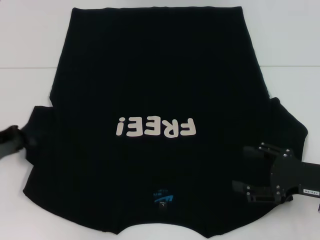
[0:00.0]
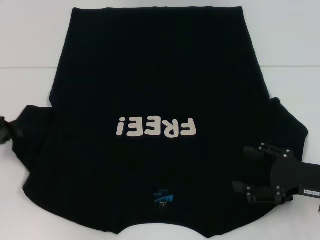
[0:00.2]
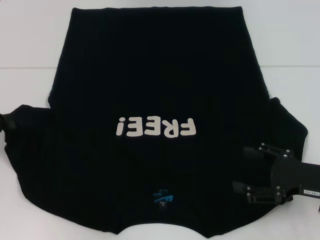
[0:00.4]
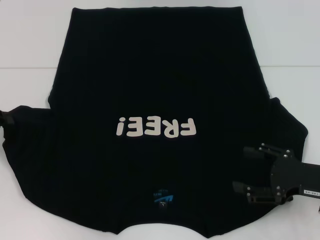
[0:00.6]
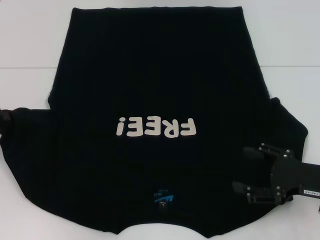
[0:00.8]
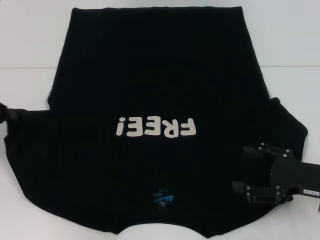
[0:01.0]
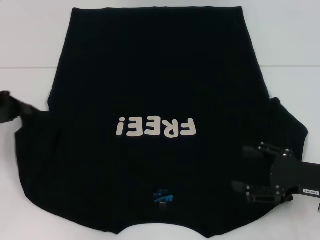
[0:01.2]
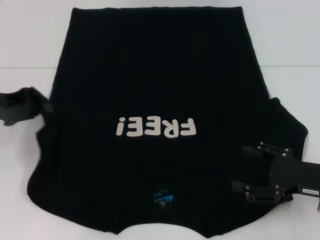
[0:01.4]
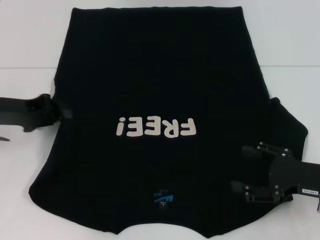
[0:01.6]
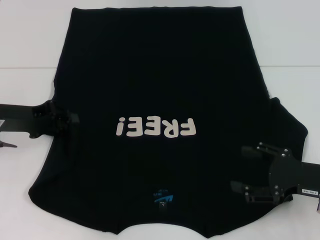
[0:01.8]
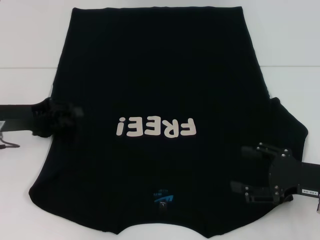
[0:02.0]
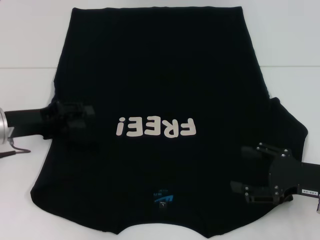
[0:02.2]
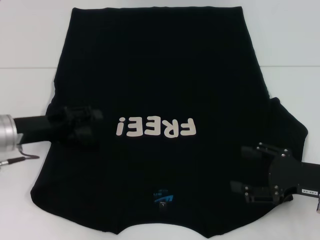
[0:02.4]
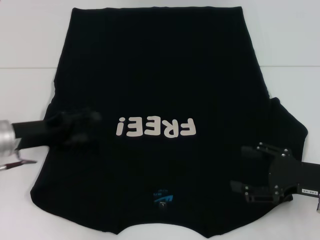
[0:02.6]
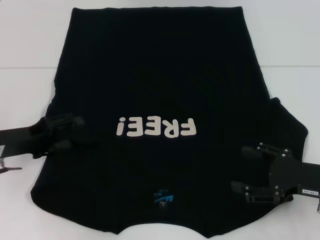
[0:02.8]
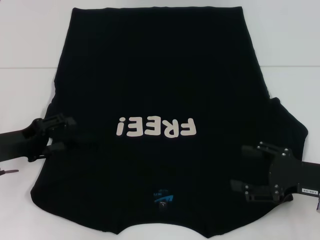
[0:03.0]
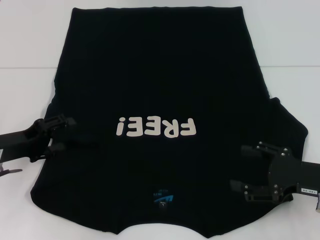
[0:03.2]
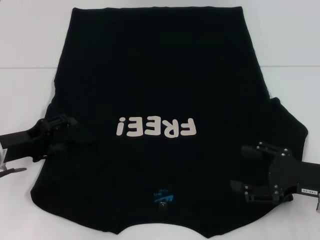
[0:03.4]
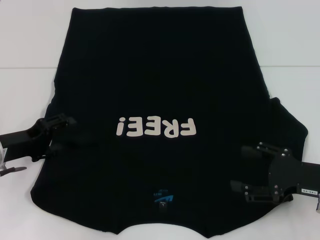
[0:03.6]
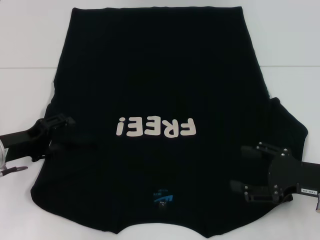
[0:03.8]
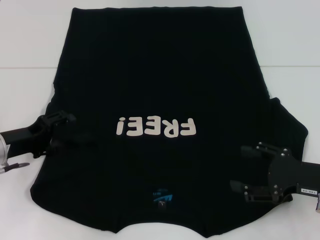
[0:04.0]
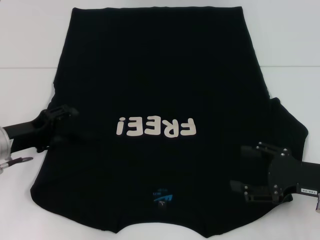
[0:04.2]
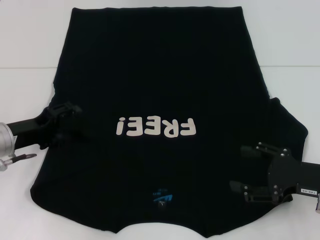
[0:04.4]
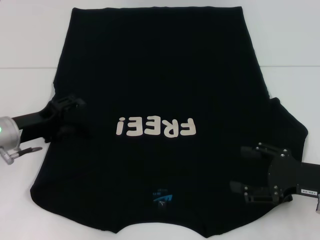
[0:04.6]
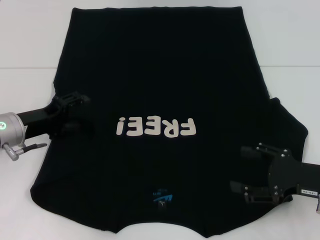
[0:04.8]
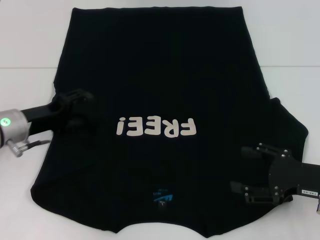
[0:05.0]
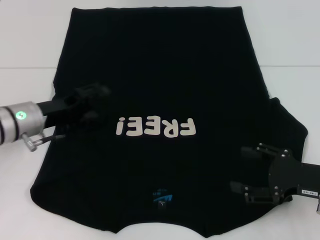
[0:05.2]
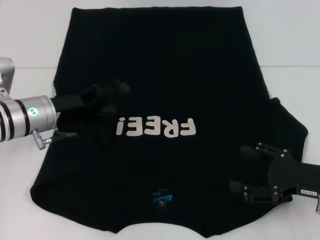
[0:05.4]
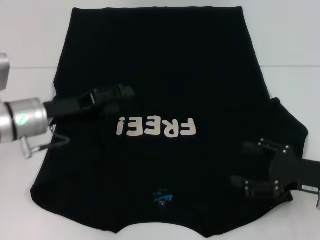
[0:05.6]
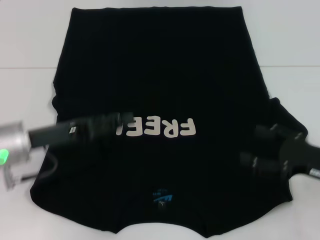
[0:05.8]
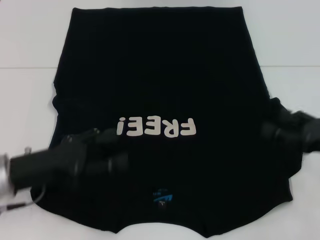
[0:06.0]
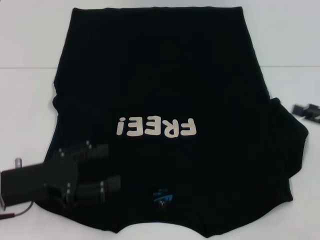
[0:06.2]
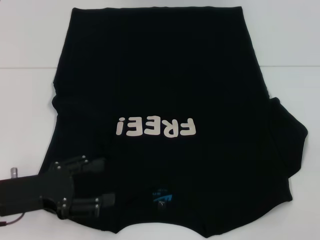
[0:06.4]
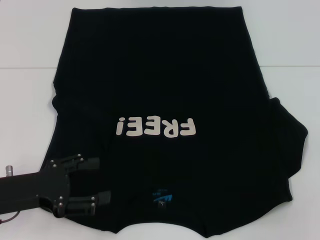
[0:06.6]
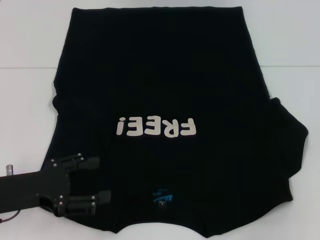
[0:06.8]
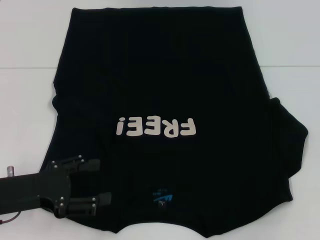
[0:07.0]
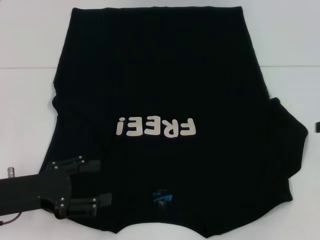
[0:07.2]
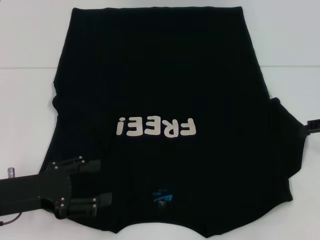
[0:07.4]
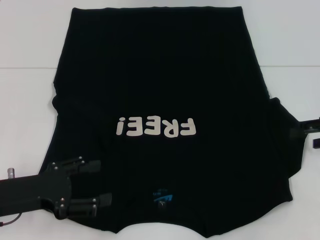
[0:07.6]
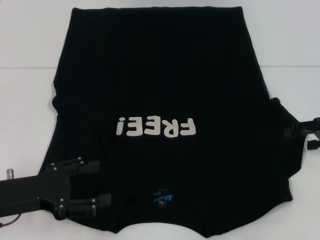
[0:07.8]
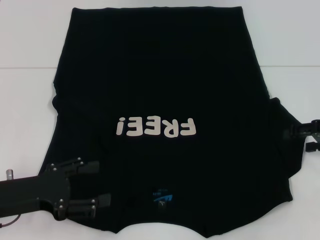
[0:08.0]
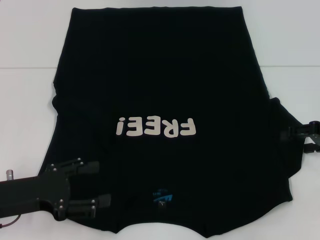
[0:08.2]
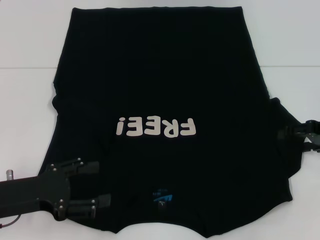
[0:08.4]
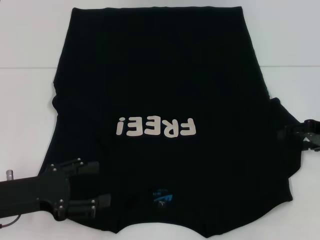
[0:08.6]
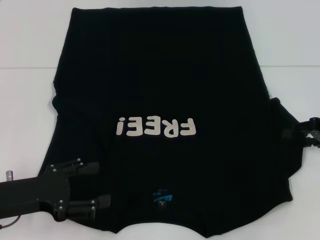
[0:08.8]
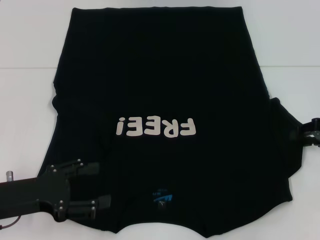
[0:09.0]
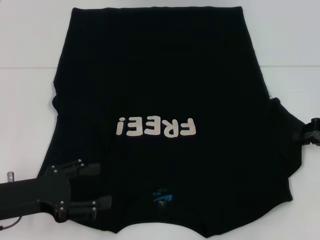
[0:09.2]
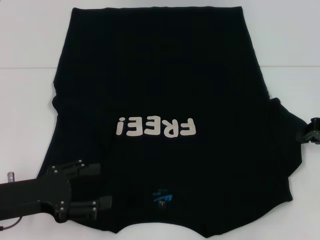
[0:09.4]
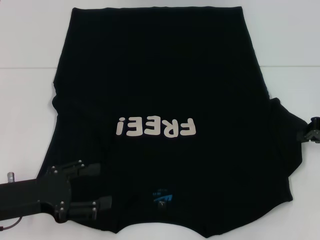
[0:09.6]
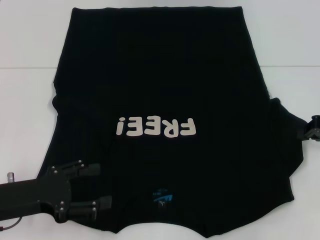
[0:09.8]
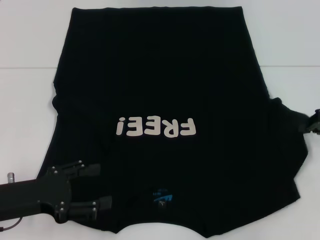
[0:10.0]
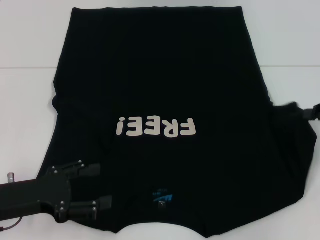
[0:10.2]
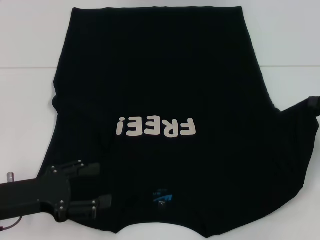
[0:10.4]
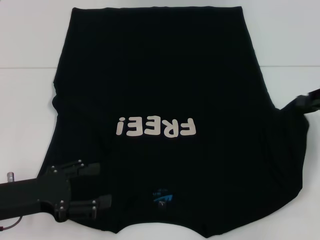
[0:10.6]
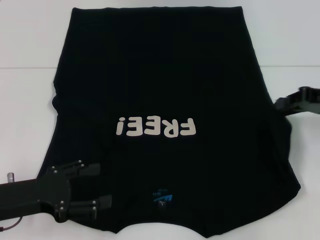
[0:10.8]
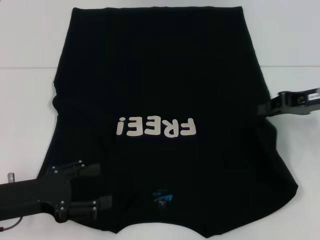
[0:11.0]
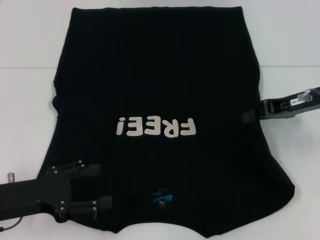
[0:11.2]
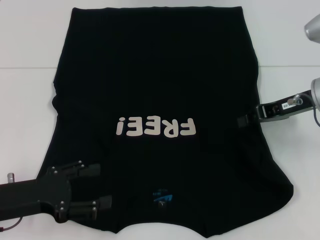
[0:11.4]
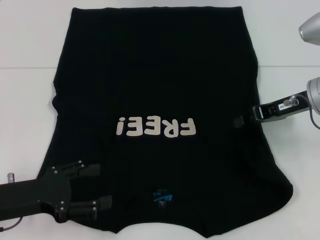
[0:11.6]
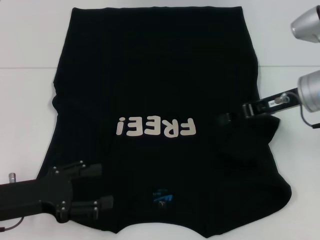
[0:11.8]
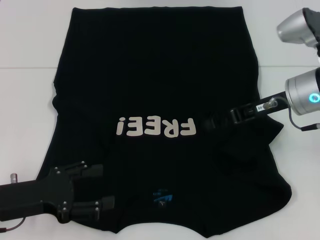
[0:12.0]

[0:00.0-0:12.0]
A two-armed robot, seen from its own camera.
Step, 0:00.0 to 0:02.2: Fold the bottom left sleeve with your left hand.
0:00.0 to 0:01.6: The left gripper ends up some 10 cm from where it was.
0:01.6 to 0:03.0: The left gripper moves downward, about 5 cm, and opens.
0:03.0 to 0:04.4: The grippers make only small movements.
0:04.4 to 0:06.0: The left gripper goes approximately 5 cm backward.
0:06.0 to 0:07.6: The right gripper is displaced forward and upward by about 10 cm, and moves approximately 10 cm to the right and comes back.
0:07.6 to 0:09.0: The grippers make only small movements.
0:09.0 to 0:10.4: The right gripper closes its fingers.
0:10.4 to 0:12.0: The right gripper goes approximately 15 cm to the left.

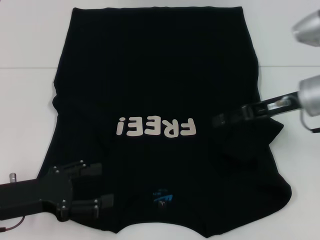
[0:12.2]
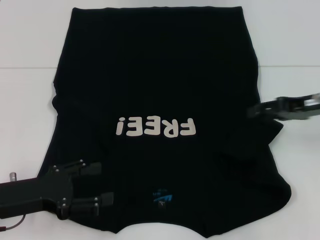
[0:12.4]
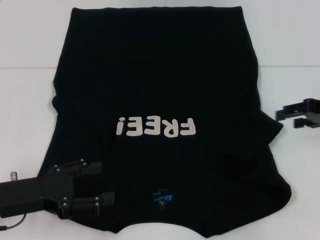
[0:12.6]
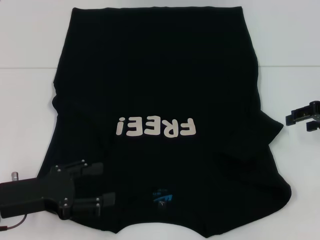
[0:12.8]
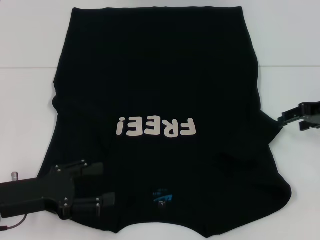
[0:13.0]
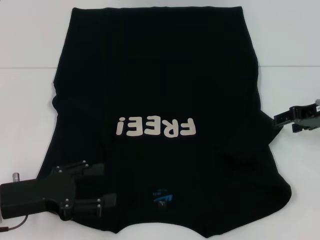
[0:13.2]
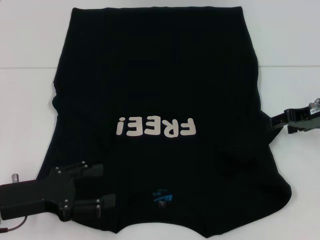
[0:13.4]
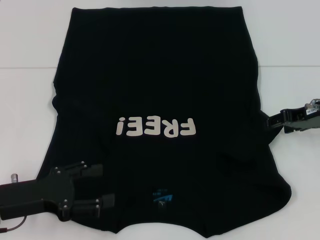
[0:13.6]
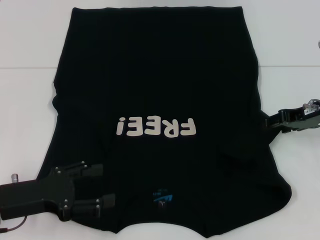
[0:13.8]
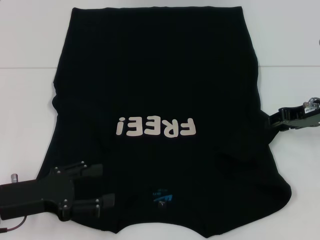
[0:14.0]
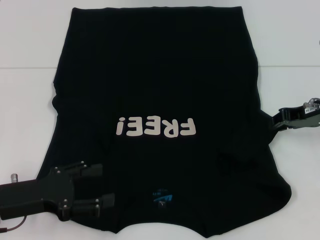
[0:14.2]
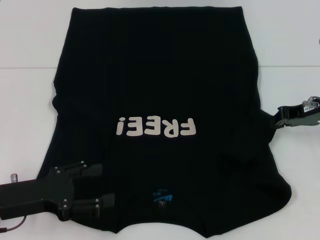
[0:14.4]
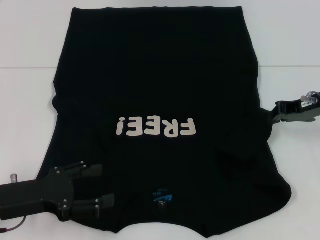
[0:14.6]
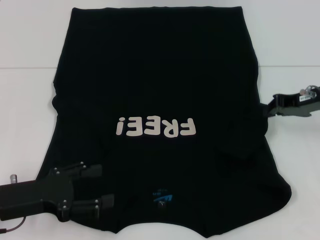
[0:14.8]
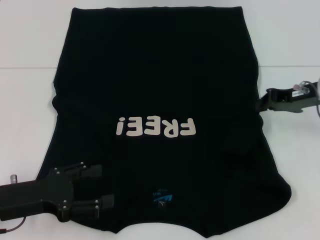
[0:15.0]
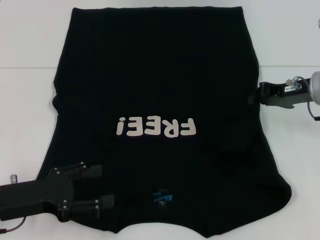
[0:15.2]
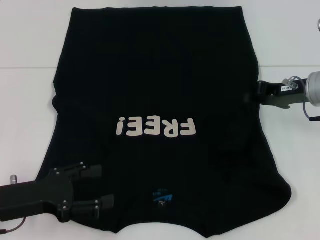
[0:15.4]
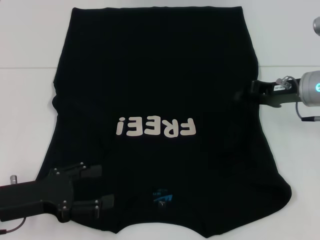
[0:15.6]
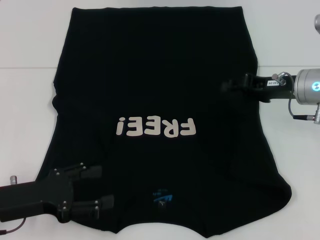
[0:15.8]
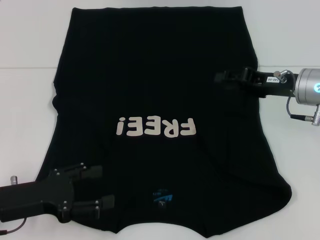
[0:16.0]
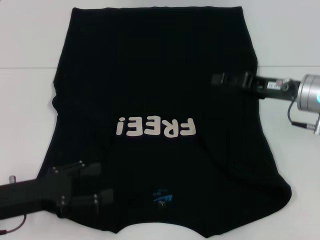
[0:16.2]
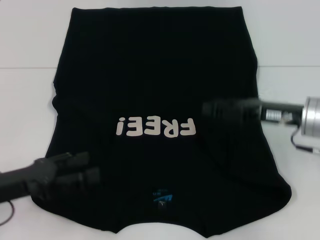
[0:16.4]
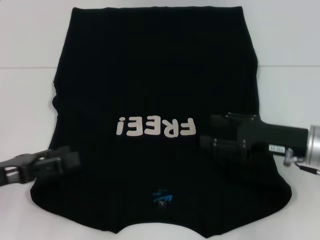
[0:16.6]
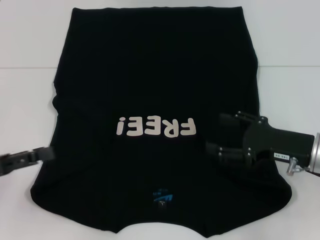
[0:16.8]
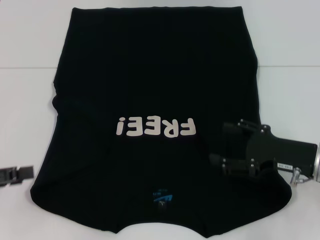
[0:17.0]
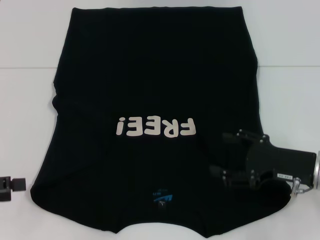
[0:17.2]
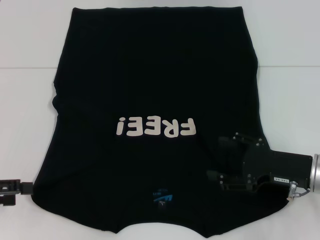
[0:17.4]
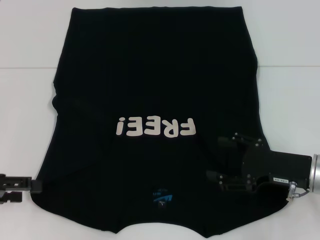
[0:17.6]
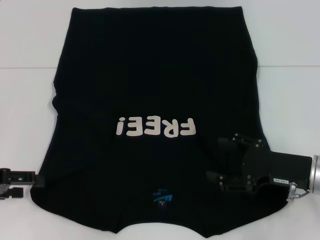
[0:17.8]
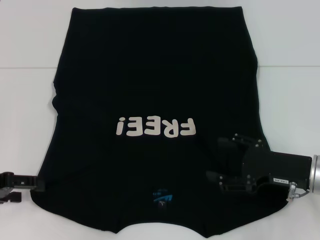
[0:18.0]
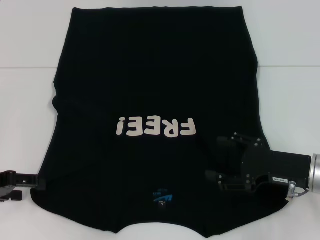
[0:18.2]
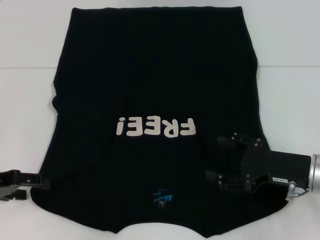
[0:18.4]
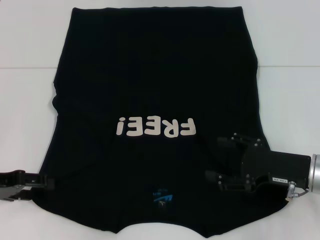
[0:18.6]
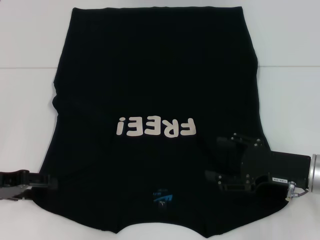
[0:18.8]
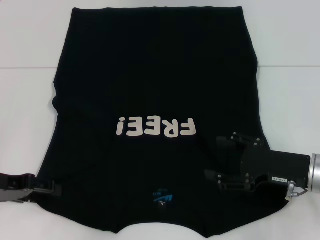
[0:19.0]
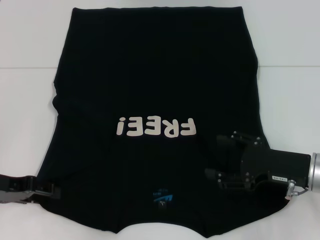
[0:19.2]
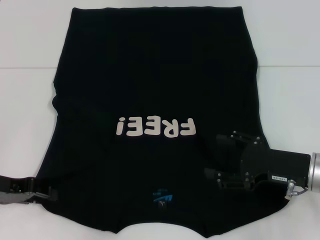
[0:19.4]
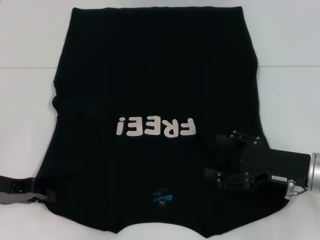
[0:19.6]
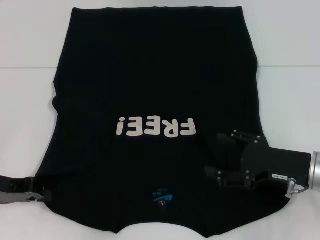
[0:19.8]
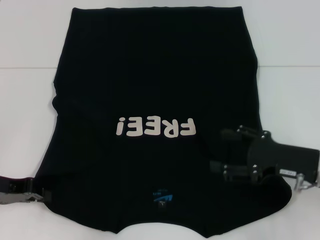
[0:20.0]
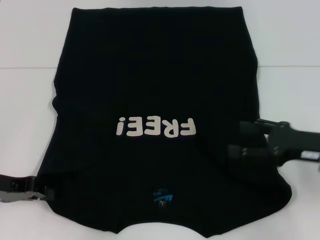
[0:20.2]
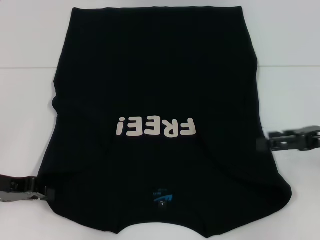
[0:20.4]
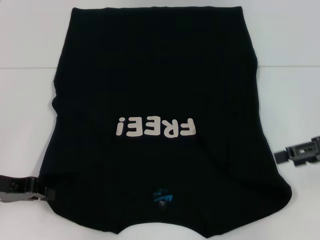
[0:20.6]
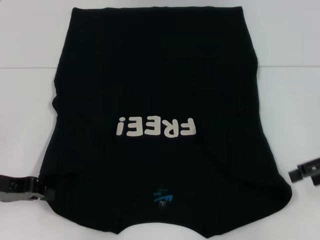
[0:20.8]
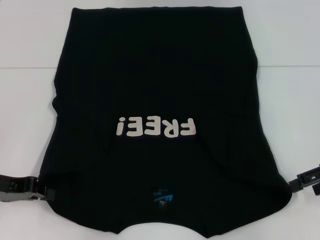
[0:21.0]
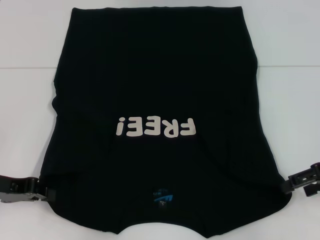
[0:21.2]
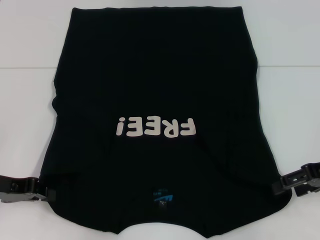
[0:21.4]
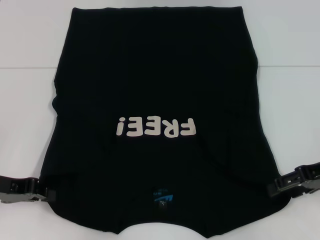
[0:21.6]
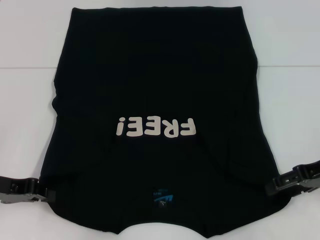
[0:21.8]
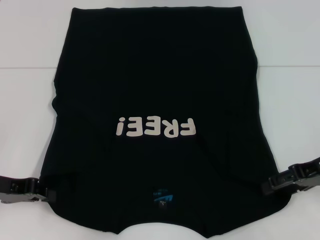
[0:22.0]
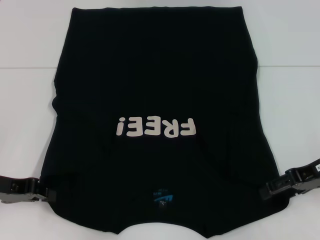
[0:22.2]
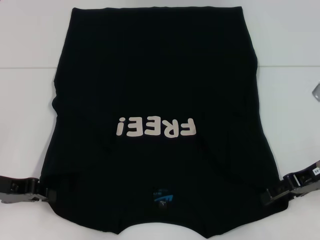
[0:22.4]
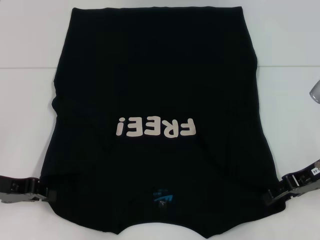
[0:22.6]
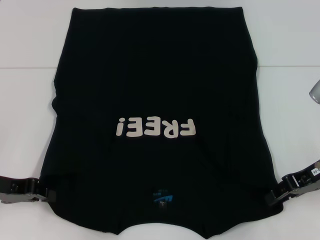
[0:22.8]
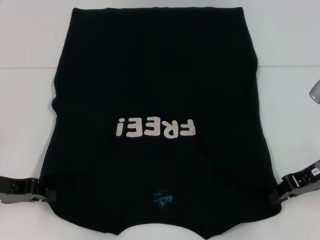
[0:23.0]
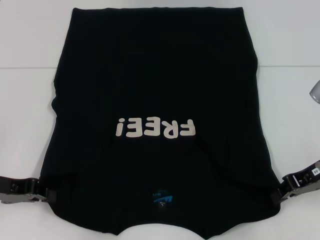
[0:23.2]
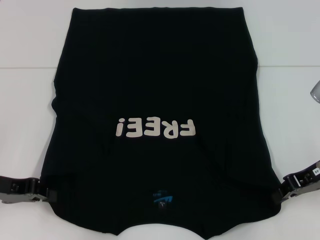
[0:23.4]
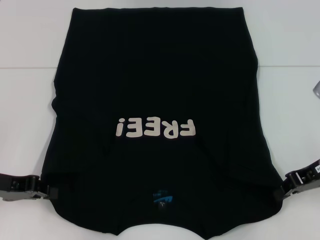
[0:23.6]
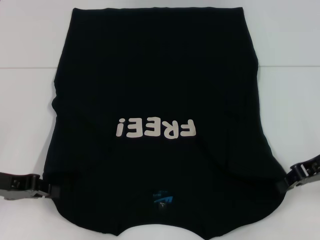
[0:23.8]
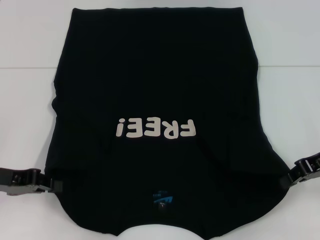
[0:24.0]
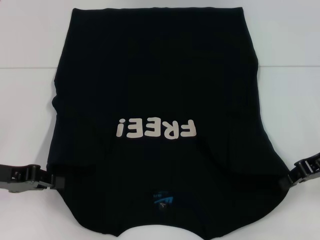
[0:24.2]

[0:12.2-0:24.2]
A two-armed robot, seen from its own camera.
Step, 0:12.2 to 0:16.0: Fold the bottom right sleeve with your right hand.
Step, 0:16.2 to 0:20.0: Grab the bottom left corner with your left hand.
Step, 0:20.2 to 0:22.8: Grab the bottom right corner with your right hand.
0:12.2 to 0:13.8: The right gripper goes approximately 5 cm to the right.
0:13.8 to 0:15.2: The right gripper closes its fingers.
0:15.2 to 0:16.6: The right gripper shifts approximately 10 cm backward, and opens. The left gripper shifts by about 5 cm.
0:18.2 to 0:19.8: The left gripper closes its fingers.
0:19.8 to 0:21.2: The right gripper is displaced to the right and upward by about 10 cm.
0:21.2 to 0:22.6: The grippers stay close to where they were, moving slightly.
0:22.6 to 0:24.2: The right gripper closes its fingers.
